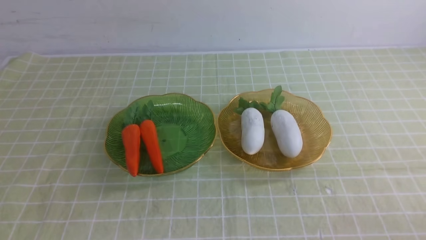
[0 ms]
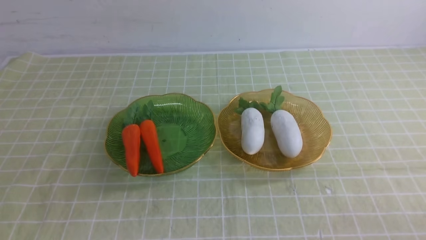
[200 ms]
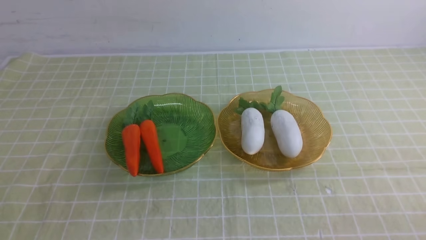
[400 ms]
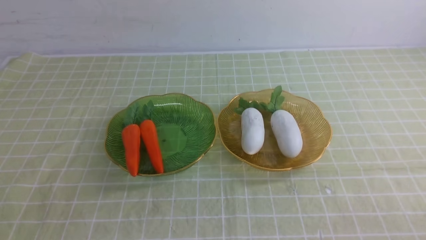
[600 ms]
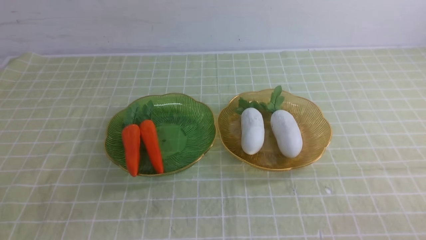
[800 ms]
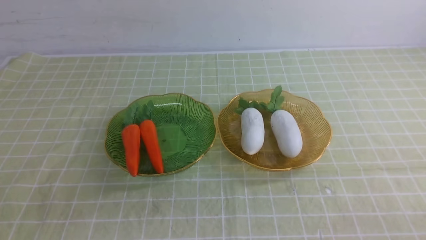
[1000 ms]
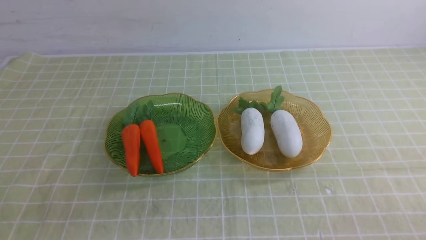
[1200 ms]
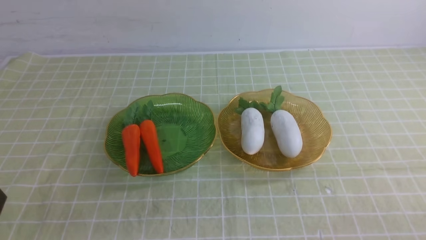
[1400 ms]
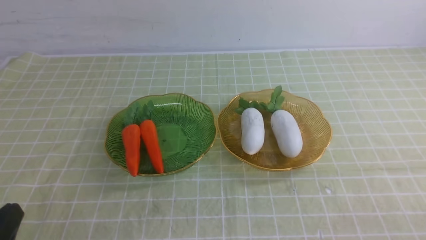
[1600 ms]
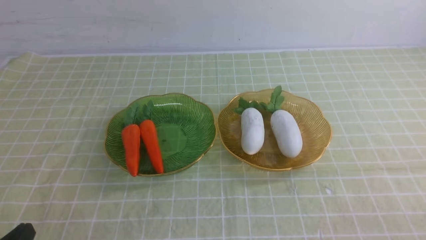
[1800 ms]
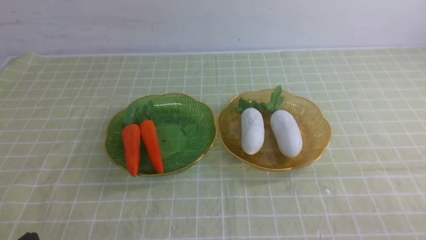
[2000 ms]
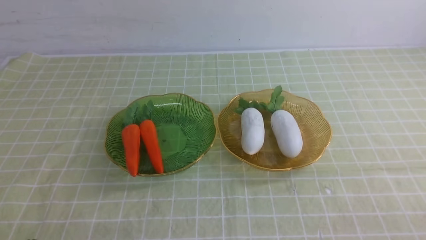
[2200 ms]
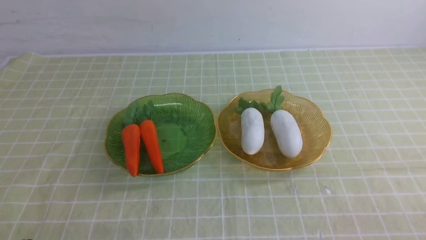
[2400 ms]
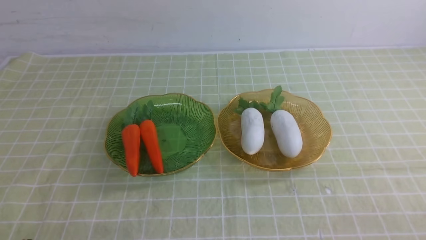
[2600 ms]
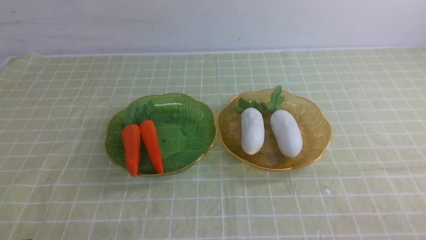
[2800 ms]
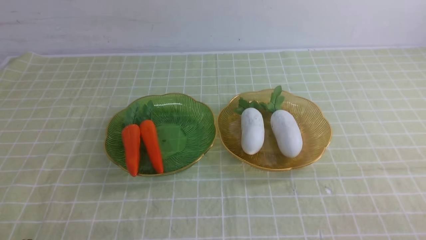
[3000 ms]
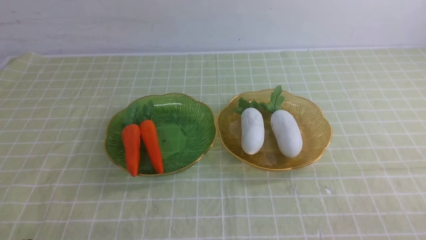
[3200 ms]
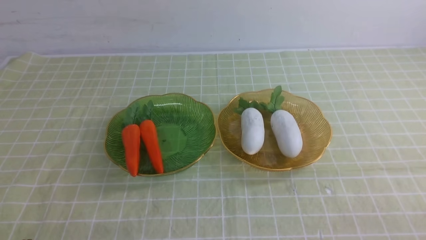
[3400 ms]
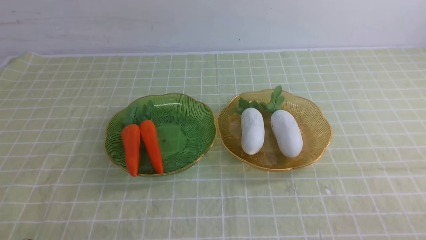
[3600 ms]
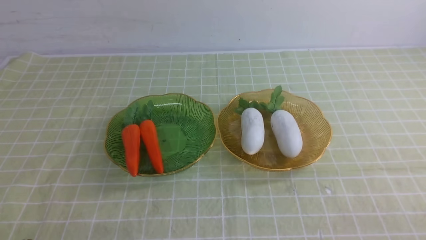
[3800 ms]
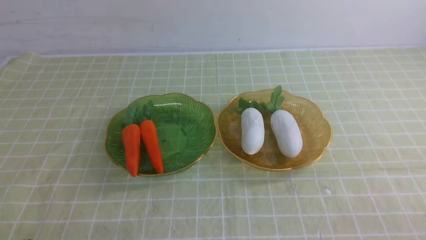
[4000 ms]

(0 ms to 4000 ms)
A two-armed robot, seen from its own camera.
2600 ms - 4000 ms: Both grippers stay put.

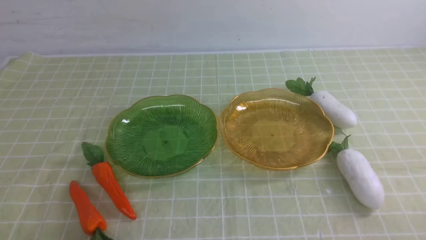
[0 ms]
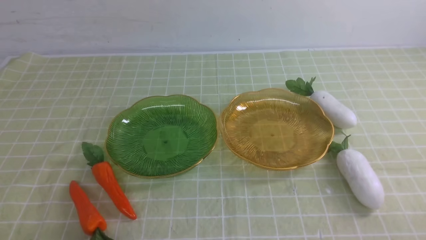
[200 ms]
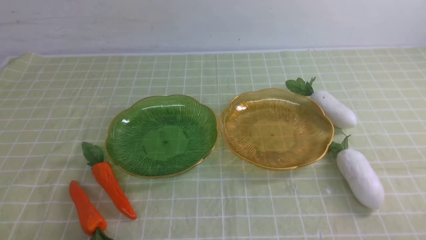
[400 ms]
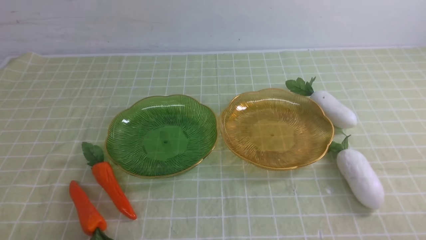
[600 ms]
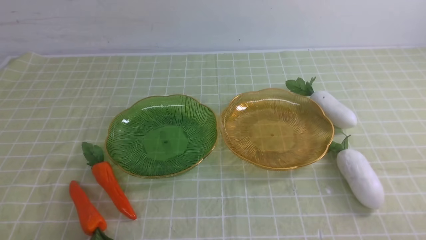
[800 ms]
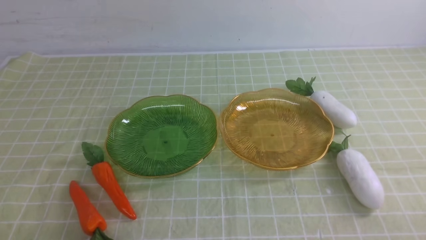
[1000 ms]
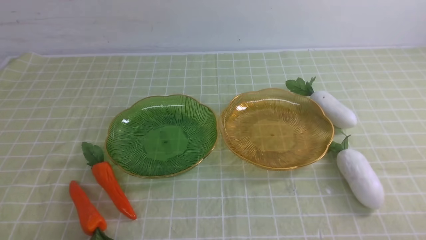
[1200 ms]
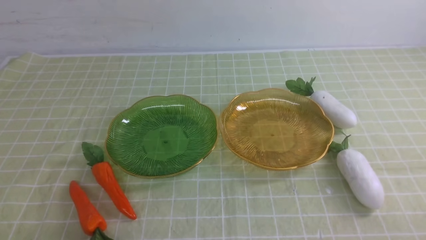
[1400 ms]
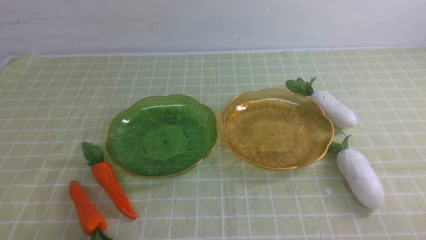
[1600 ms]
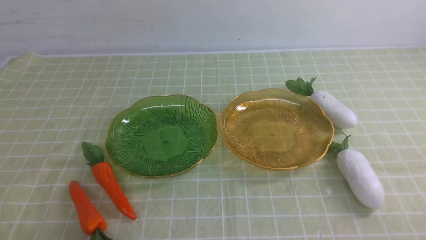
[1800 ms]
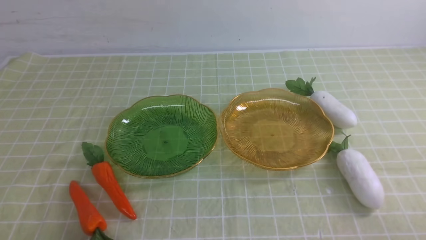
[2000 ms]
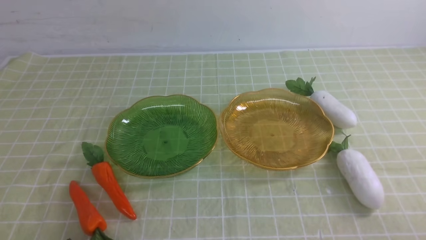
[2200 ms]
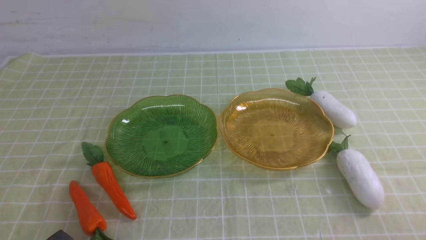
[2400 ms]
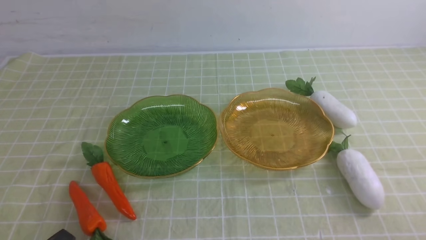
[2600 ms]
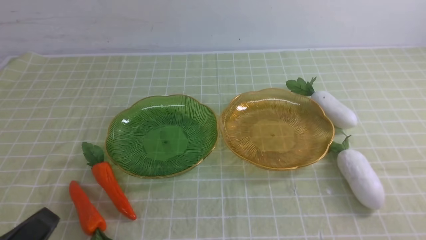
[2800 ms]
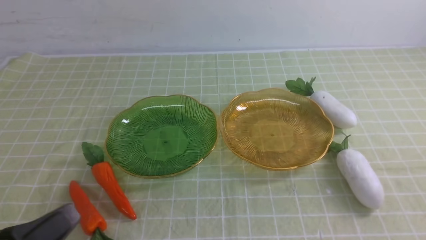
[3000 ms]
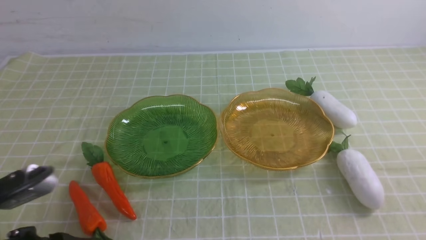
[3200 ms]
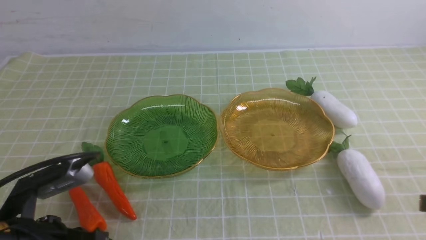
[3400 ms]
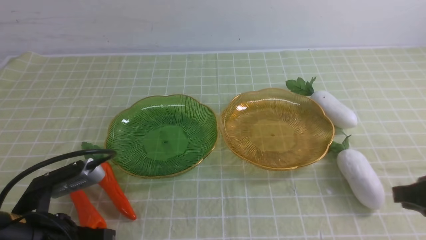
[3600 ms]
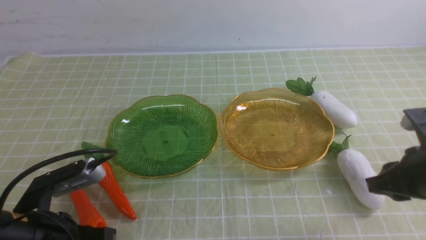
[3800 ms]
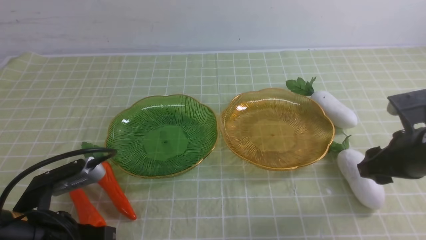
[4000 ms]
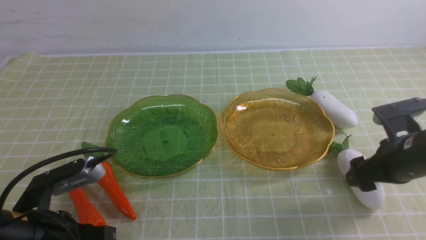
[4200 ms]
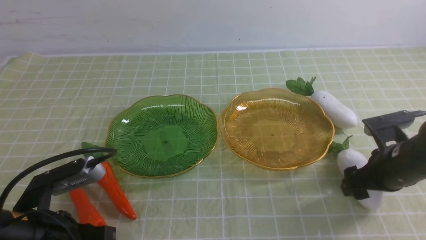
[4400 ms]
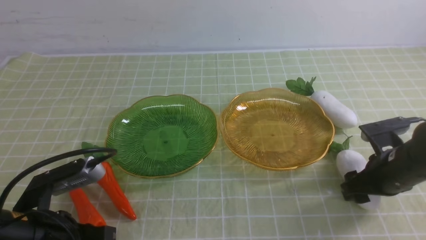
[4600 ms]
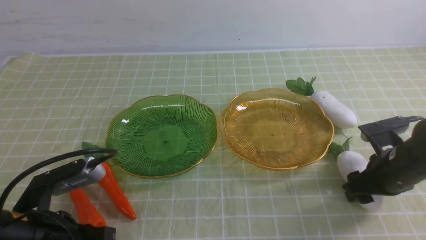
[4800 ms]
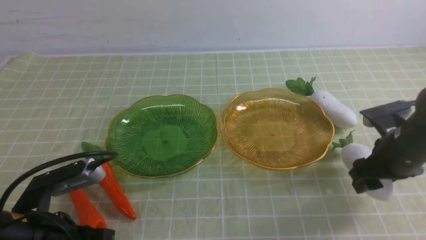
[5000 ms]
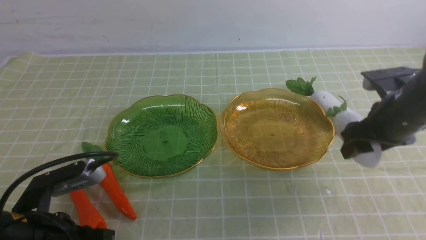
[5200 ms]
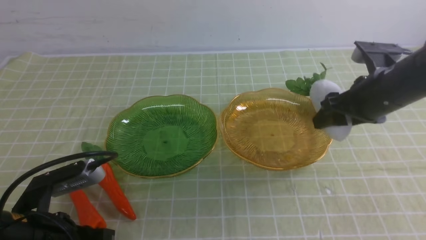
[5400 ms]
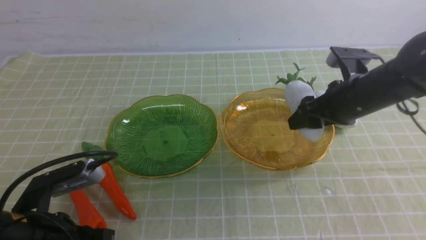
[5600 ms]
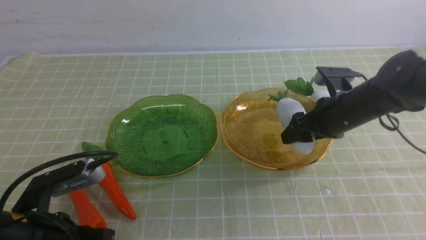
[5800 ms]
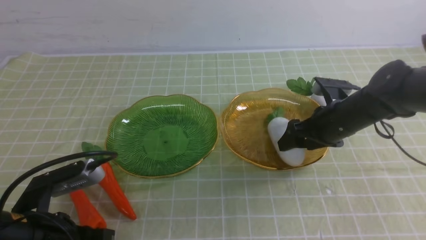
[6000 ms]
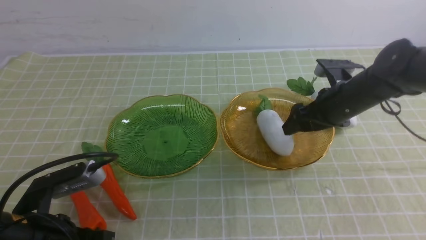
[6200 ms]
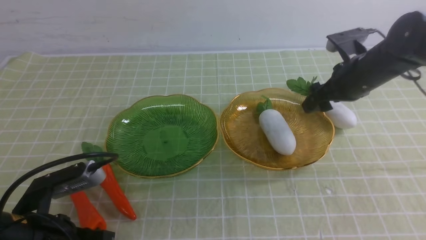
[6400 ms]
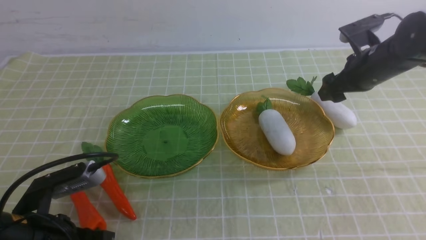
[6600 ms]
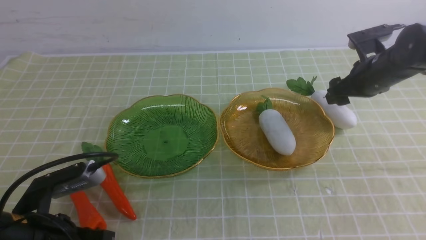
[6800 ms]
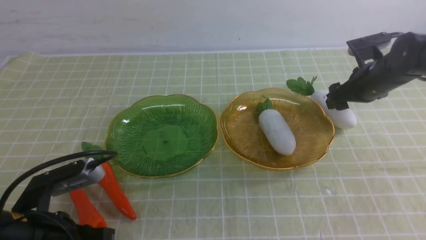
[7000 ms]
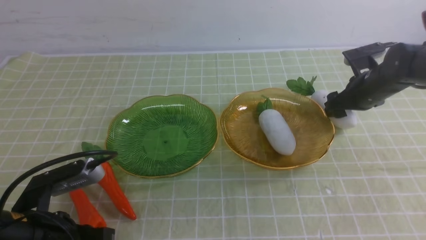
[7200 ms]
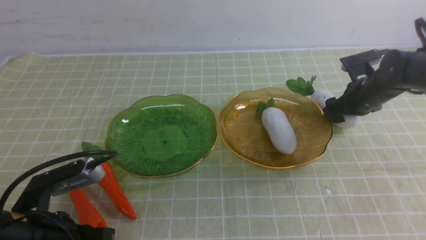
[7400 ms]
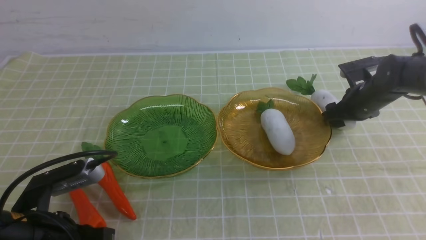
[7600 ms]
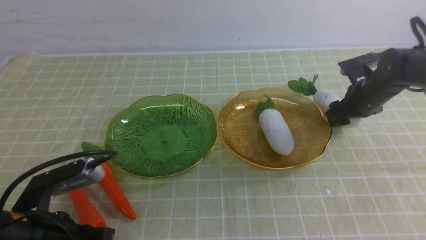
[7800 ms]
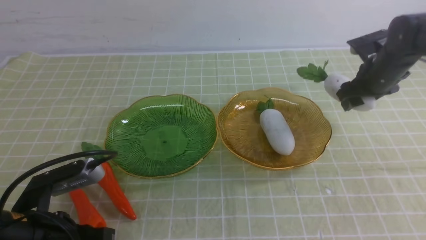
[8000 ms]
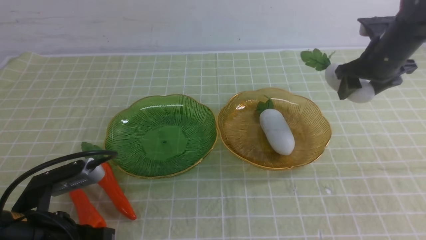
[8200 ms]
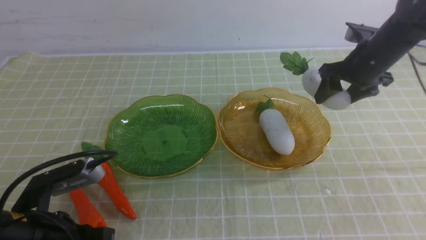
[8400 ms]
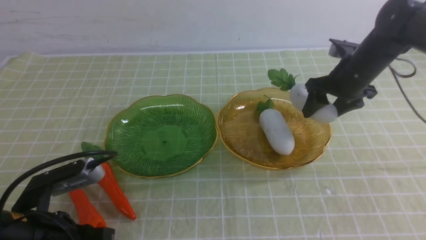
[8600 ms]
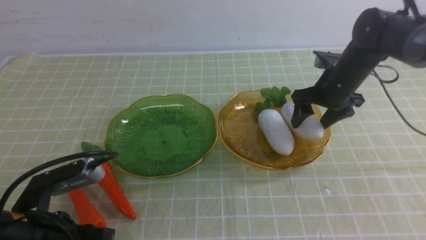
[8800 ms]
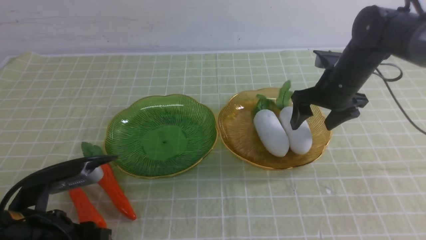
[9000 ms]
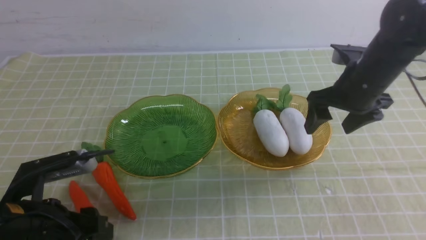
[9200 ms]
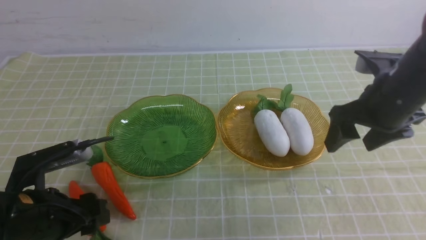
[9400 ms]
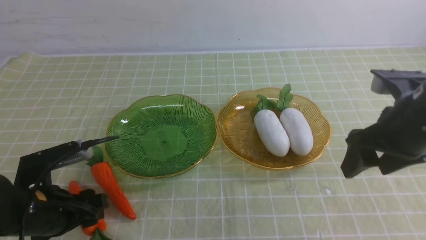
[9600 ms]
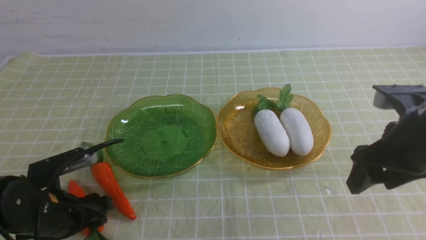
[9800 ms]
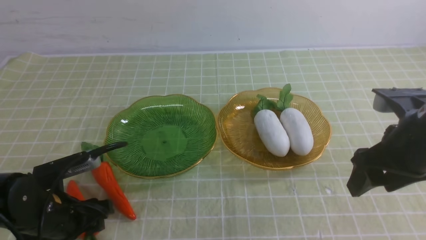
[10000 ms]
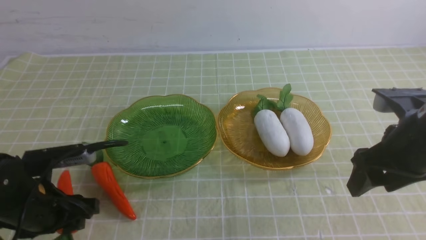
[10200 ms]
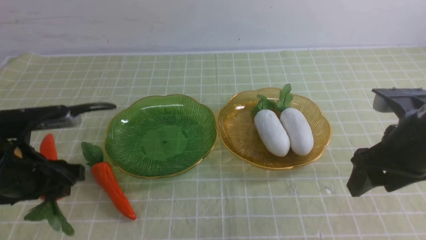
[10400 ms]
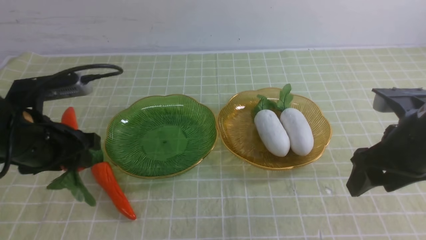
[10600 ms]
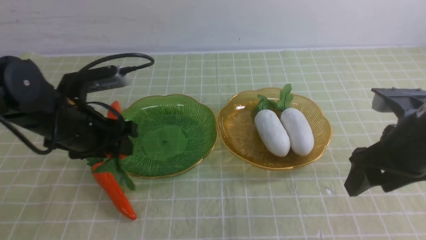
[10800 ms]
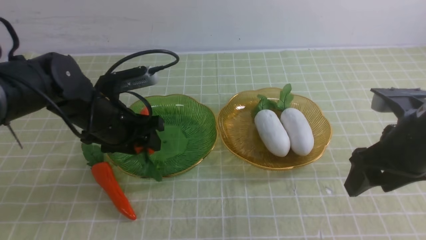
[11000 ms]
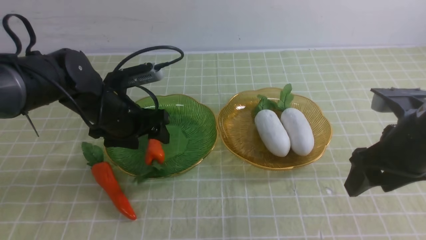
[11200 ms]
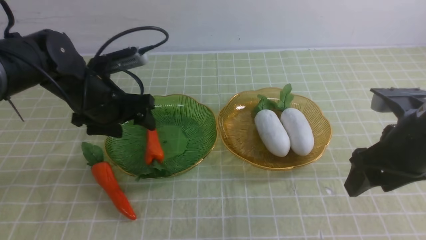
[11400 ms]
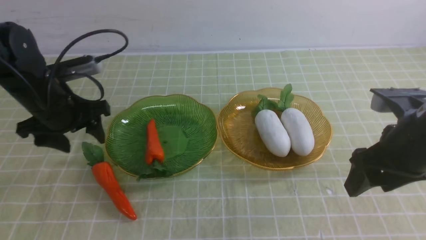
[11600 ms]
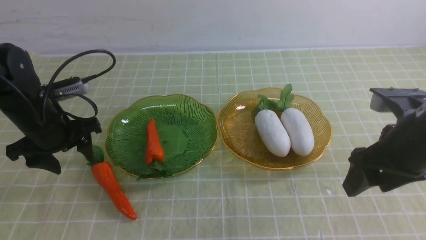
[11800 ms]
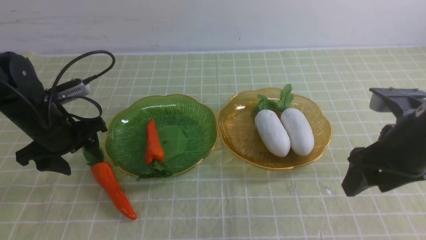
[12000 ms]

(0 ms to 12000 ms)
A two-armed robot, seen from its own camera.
Step, 0 ms - 6600 ms: use the right arm to grab a radish and put it into the right plate.
Step, 6800 ms - 9600 ms: use the right arm to grab a radish and put it into the right plate.
Step, 10000 ms - 12000 ms: use the left arm to grab a carrot and put it into the left plate.
0 ms - 1600 ms: Neither gripper changes place.
1600 ms - 3000 ms: The left gripper is displaced upward by about 10 cm.
3000 ms - 4400 ms: The right gripper shifts some 25 cm forward and downward, and opens; the left gripper is displaced forward by about 10 cm.
4400 ms - 6000 ms: The right gripper shifts about 10 cm forward and to the left.
6000 ms - 7600 ms: The right gripper travels to the right and forward by roughly 10 cm.
7600 ms - 9000 ms: The right gripper travels upward and to the left by about 10 cm; the left gripper opens.
9000 ms - 10400 ms: The right gripper travels backward by about 15 cm. Meanwhile the left gripper goes approximately 10 cm forward, and goes downward and returns, approximately 5 cm each way.
10400 ms - 12000 ms: The left gripper is displaced forward by about 10 cm.
